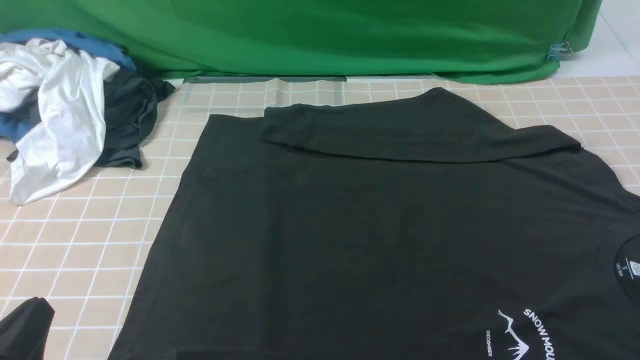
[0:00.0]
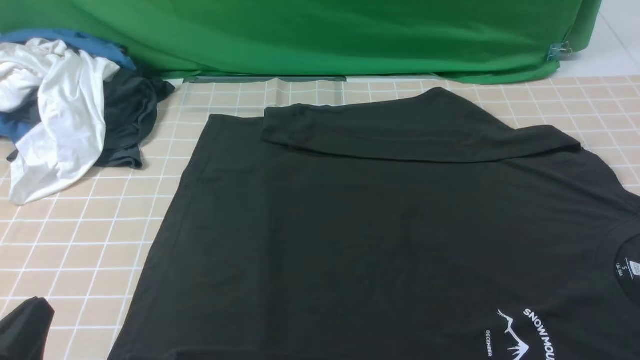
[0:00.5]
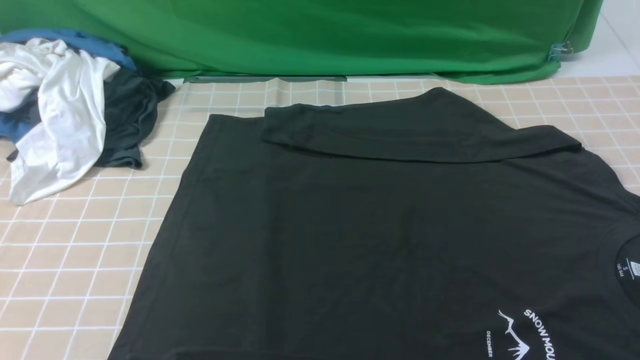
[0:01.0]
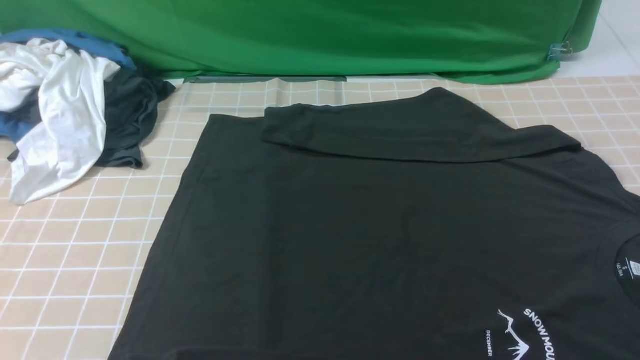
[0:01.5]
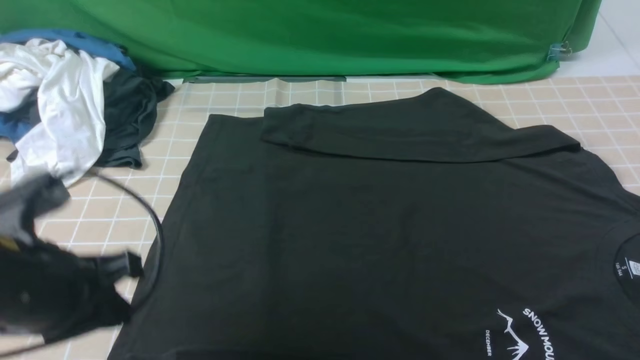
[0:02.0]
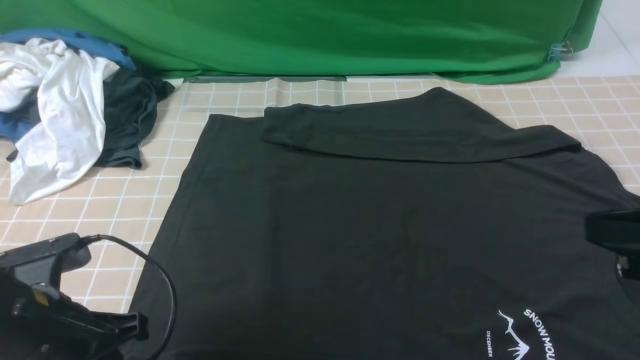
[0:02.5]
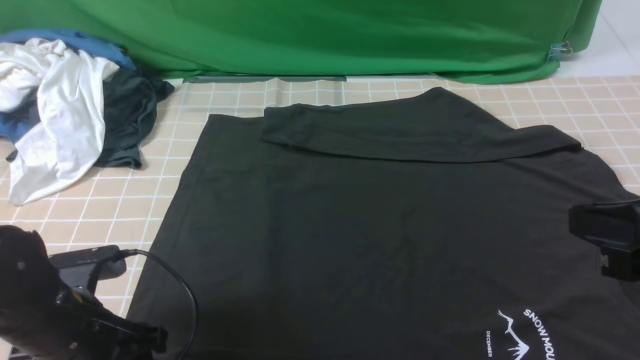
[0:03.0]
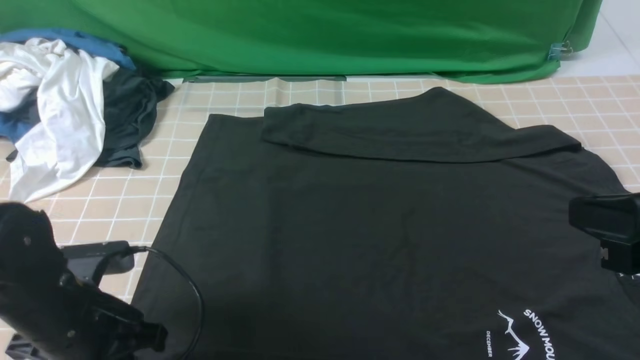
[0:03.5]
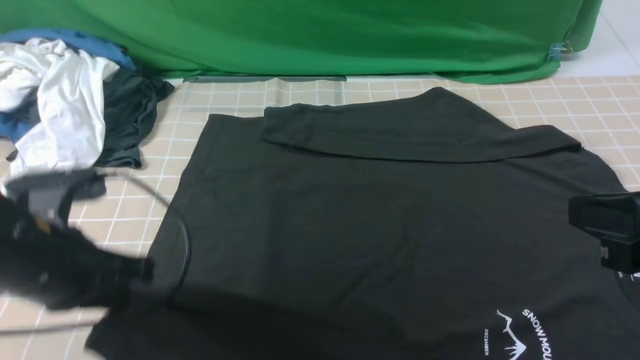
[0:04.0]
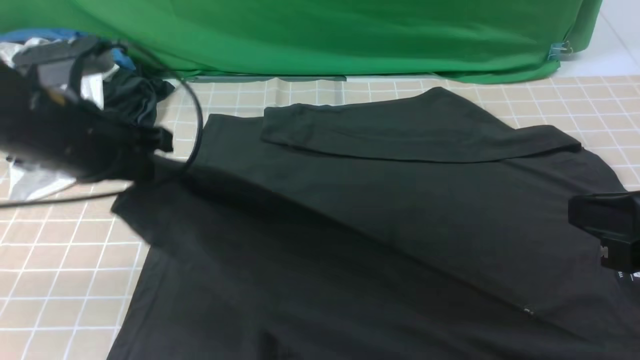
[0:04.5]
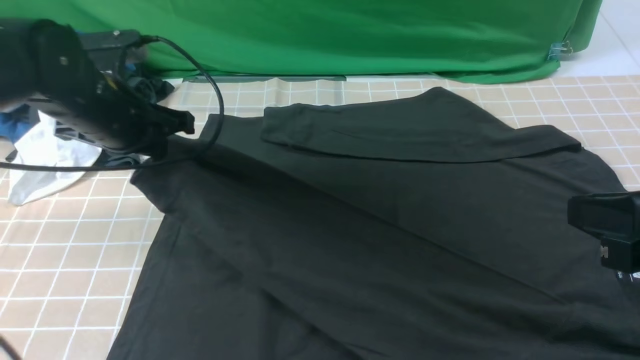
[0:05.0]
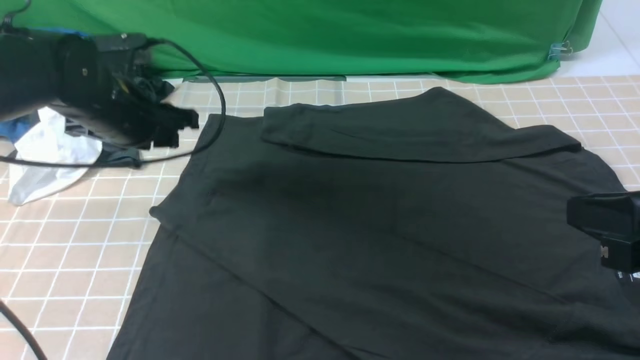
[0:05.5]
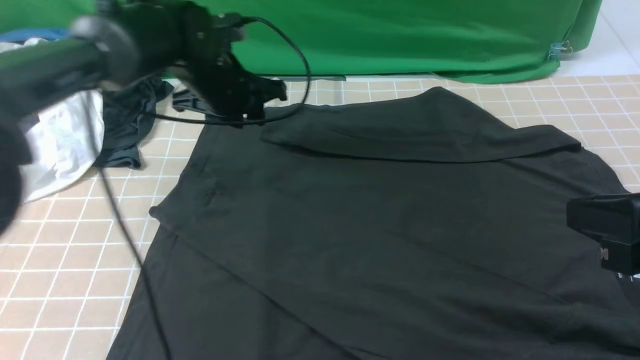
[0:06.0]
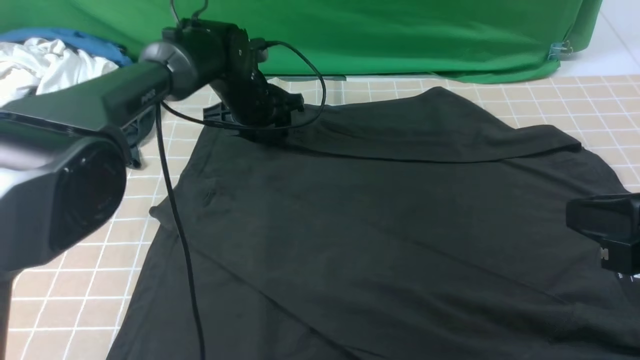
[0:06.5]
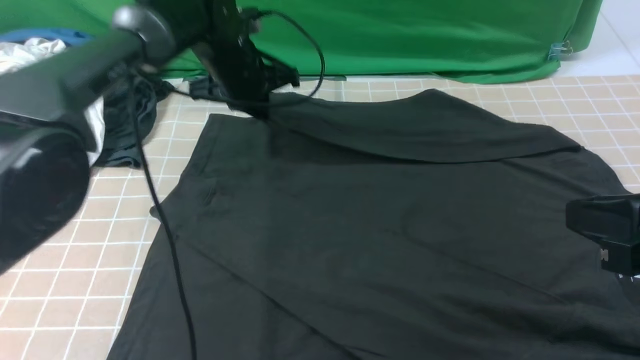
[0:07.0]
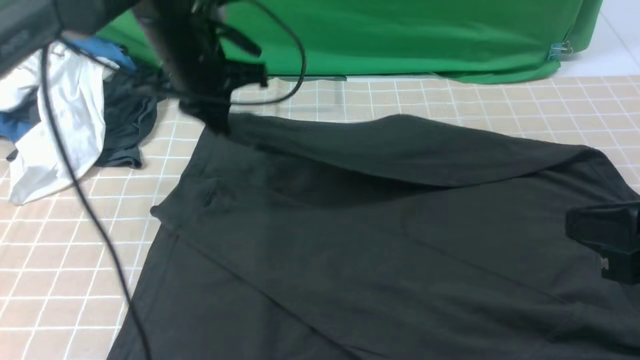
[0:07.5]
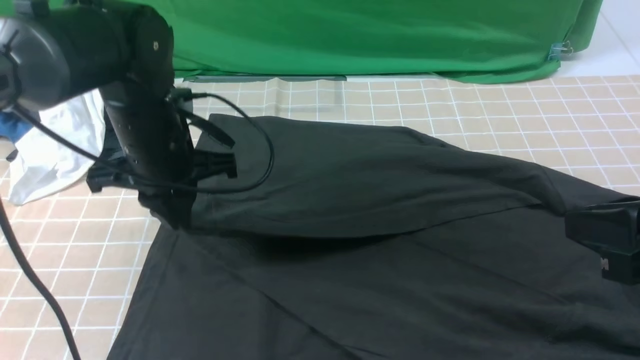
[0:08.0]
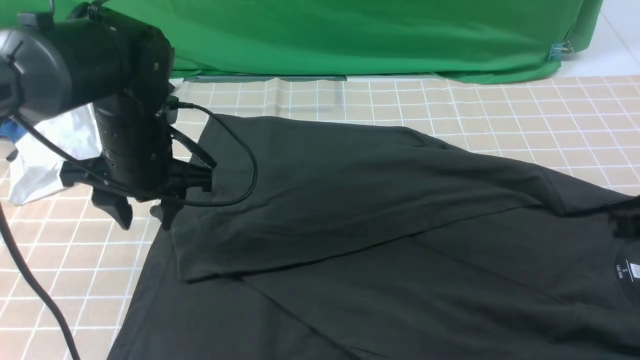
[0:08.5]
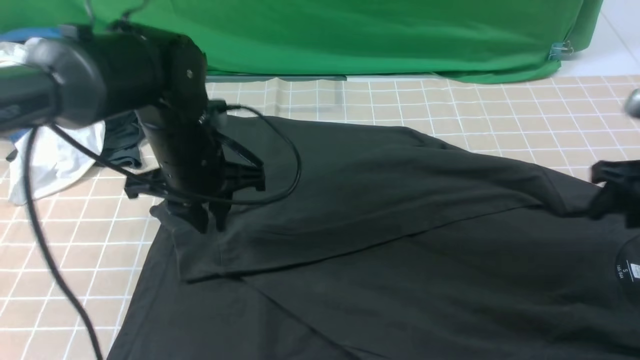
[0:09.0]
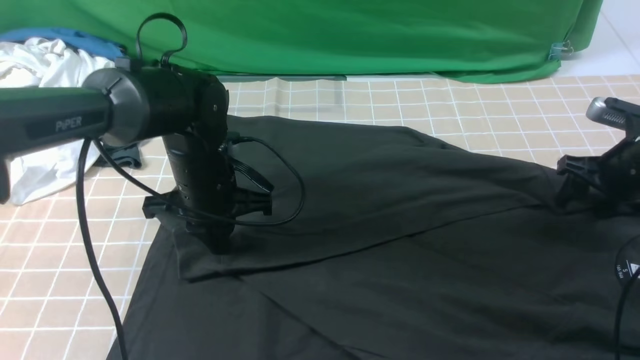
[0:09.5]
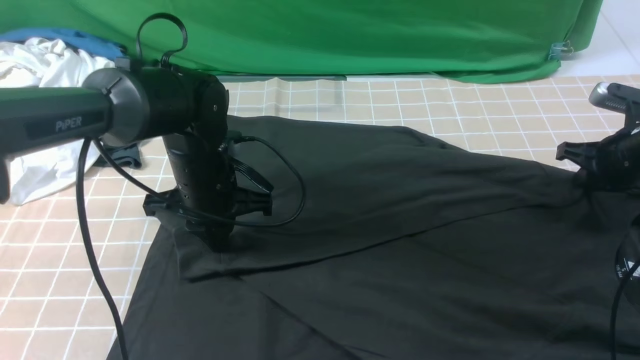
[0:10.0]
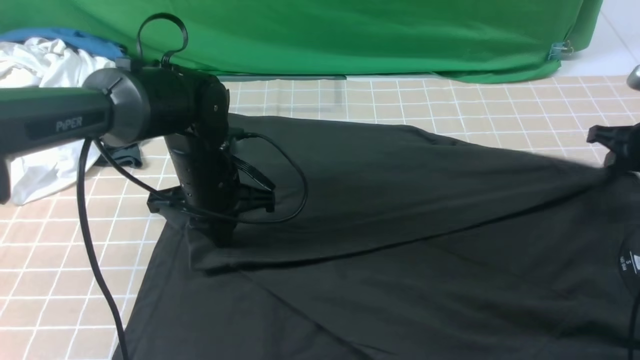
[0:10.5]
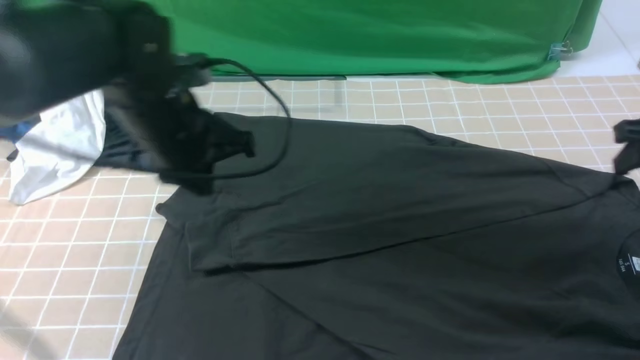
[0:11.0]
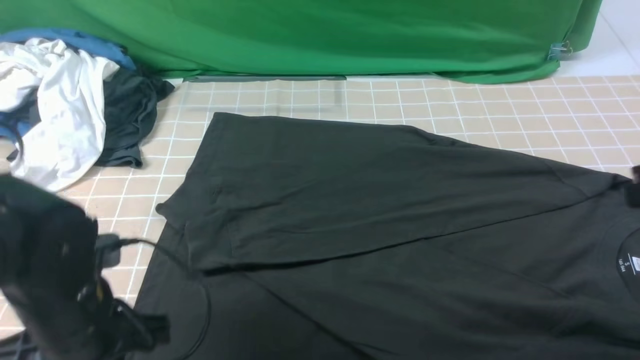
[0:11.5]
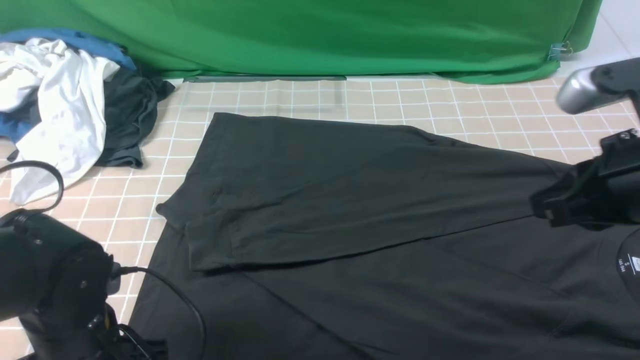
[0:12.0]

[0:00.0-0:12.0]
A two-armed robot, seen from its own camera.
Step, 0:00.0 to 0:03.0: use the left arm to clamp the cuff closest to it.
Step, 0:03.5 to 0:05.0: use the left arm to drag and place the cuff at the centered position on the left edge of the fabric.
Step, 0:05.5 to 0:06.5: use the left arm to clamp the cuff farthest from it.
Step, 0:07.0 to 0:08.0: use the left arm to drag and drop the cuff onto the cuff closest to the left arm.
0:00.0 to 0:02.0: The left gripper heads forward and upward, covering approximately 15 cm.
0:02.0 to 0:04.0: The right gripper shifts roughly 10 cm forward and to the left; the left gripper reaches approximately 10 cm downward, then returns, and opens, then closes again.
0:04.0 to 0:06.0: The left gripper shifts about 25 cm forward, and opens up.
0:06.0 to 0:08.0: The left gripper is displaced backward by roughly 10 cm, and closes up.
0:08.0 to 0:10.0: The right gripper moves forward, downward and to the right, about 30 cm, and opens, then closes once more. The left gripper heads downward, covering some 5 cm, and opens, then closes once more.
0:10.0 to 0:12.0: The left gripper is displaced backward by approximately 20 cm, and opens up, while the right gripper heads backward, upward and to the left, covering about 25 cm.

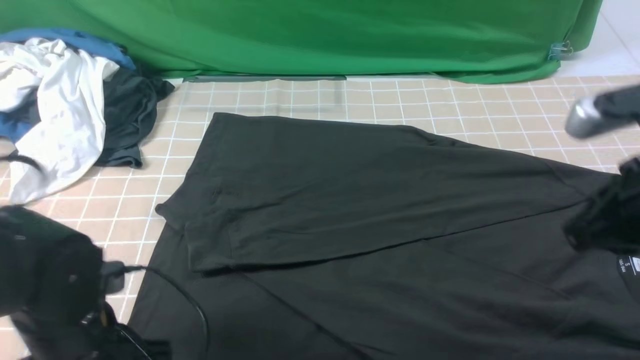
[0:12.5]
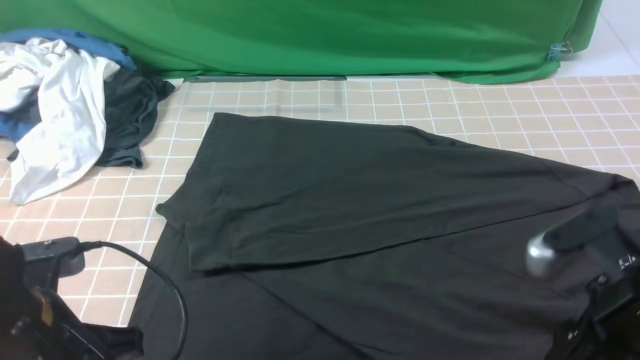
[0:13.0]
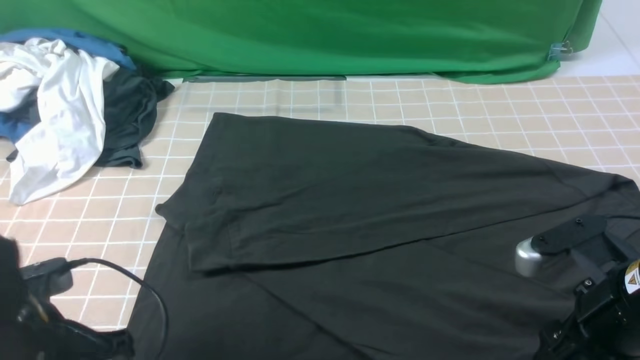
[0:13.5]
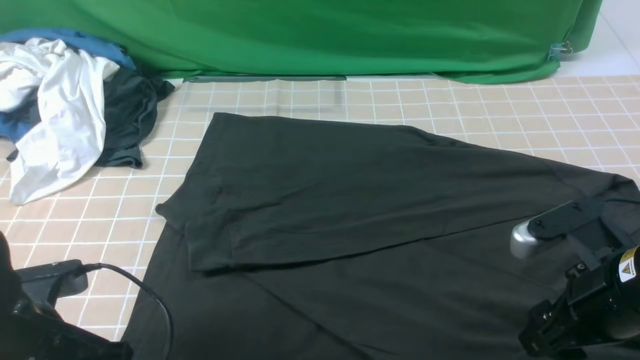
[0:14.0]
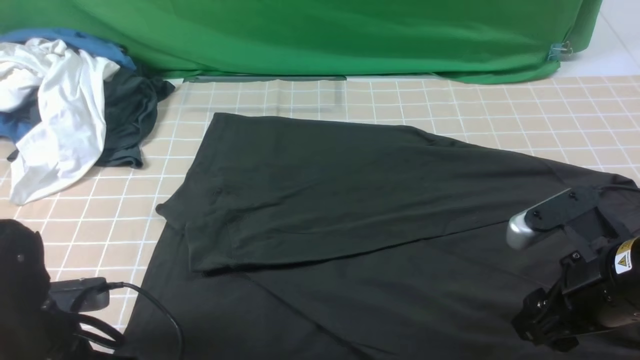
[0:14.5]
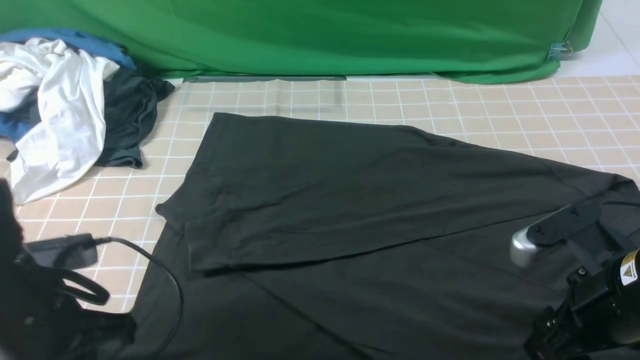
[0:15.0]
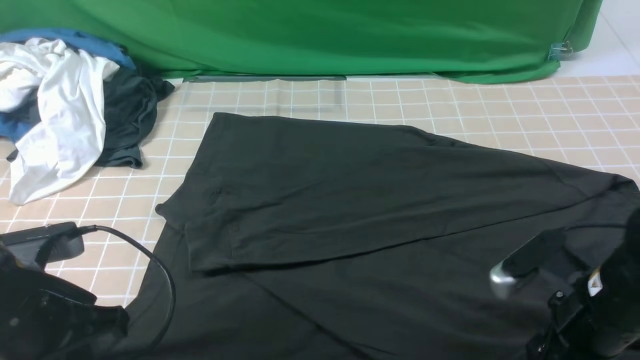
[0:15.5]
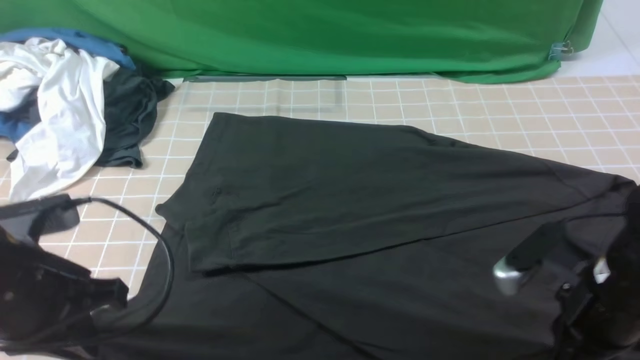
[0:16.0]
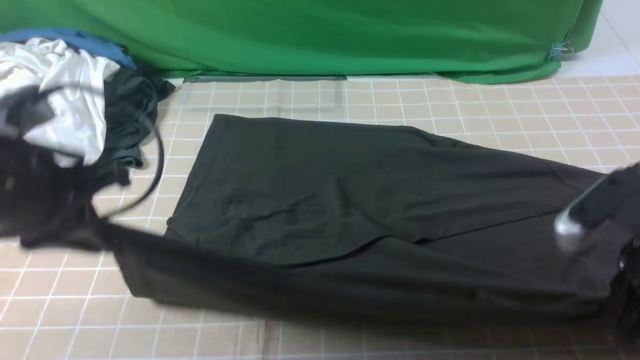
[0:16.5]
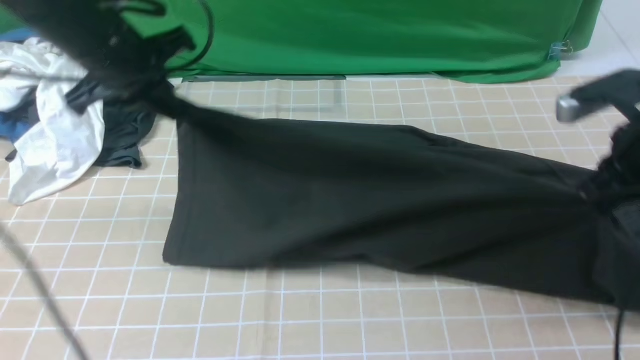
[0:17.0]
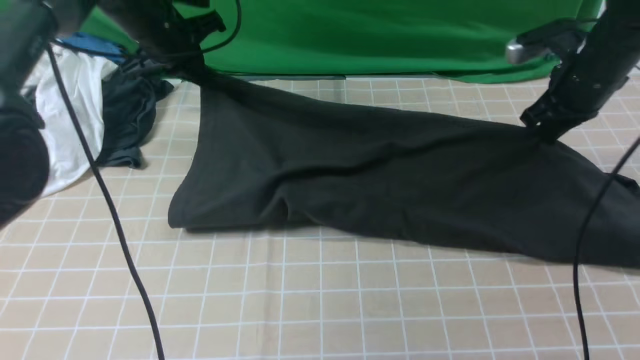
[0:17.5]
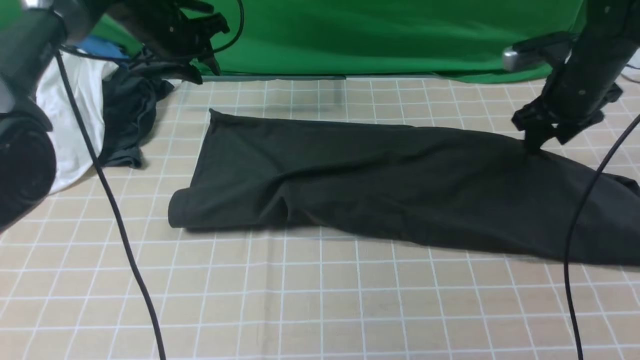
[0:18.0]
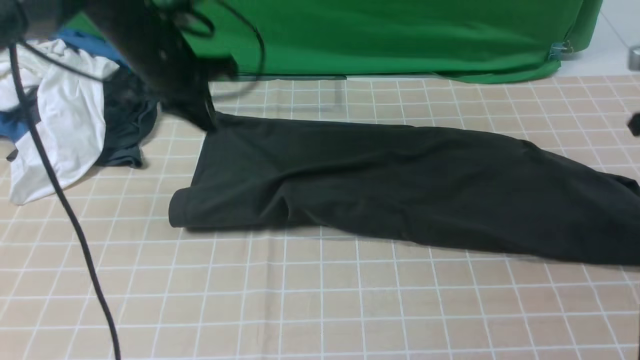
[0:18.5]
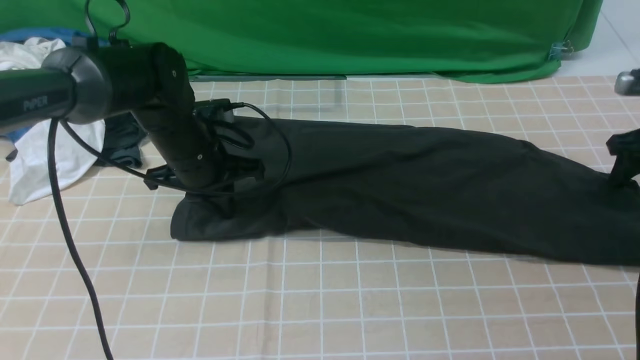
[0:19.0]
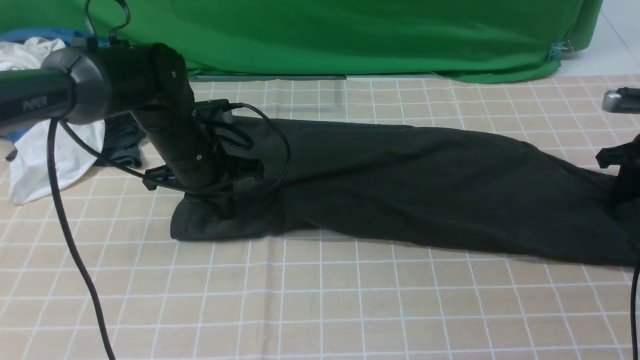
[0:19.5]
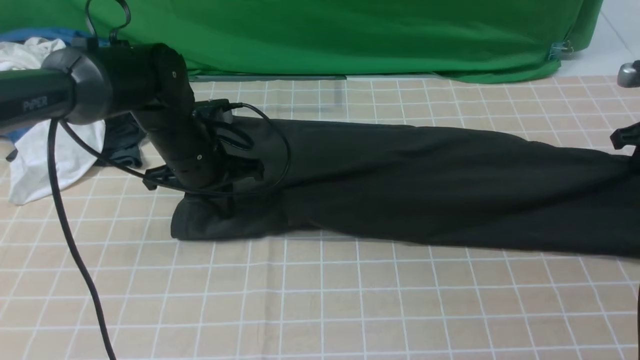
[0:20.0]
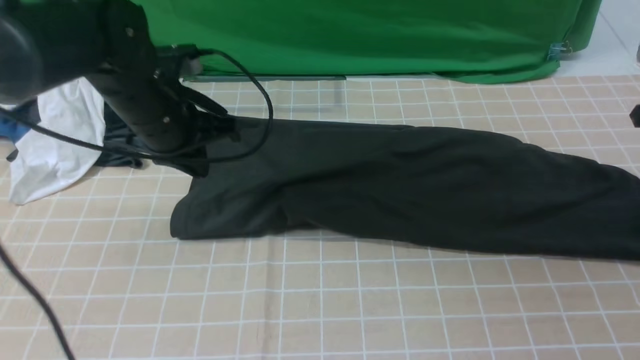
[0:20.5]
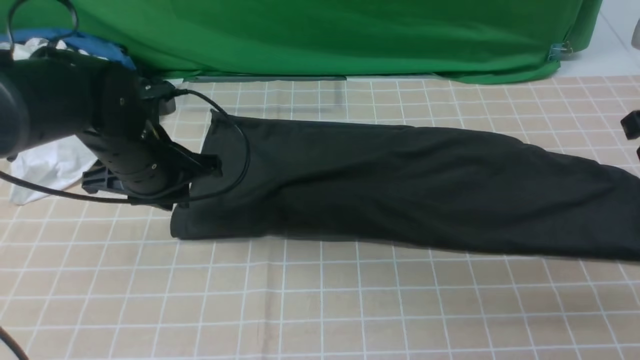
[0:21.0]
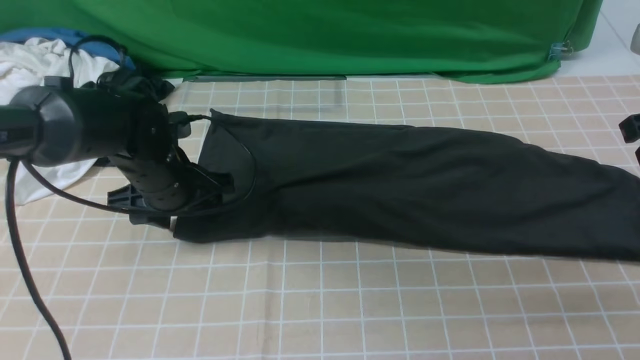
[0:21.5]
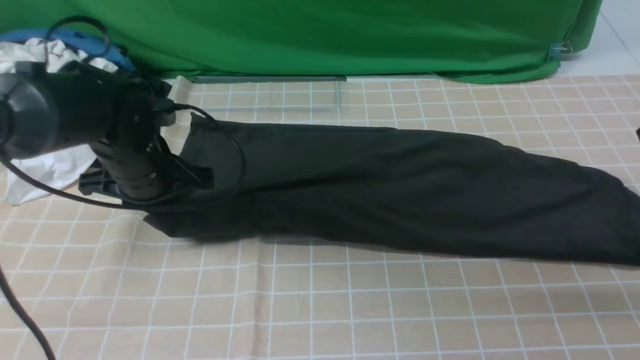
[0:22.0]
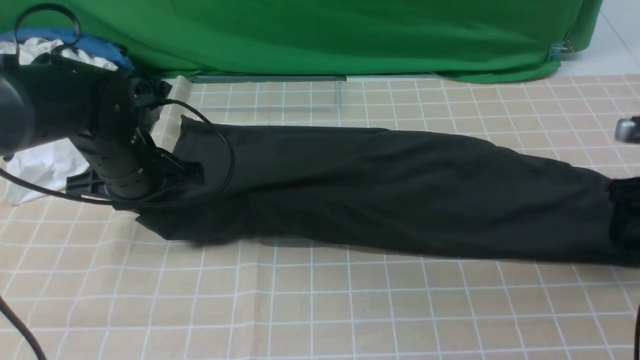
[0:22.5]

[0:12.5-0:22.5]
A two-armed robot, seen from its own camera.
Step, 0:12.5 to 0:15.5: use both arms simultaneously to clamp the lower edge of the clothing fabric.
Step, 0:16.0 to 0:17.5: use both arms to drag the lower edge of the fabric forward and fold it over the upper edge.
0:12.5 to 0:14.5: The right gripper goes some 10 cm downward, and opens up. The left gripper opens its fingers.
0:14.5 to 0:16.5: The left gripper goes some 15 cm upward and forward, and closes up, while the right gripper ends up roughly 5 cm from where it was, and closes up.
0:16.5 to 0:18.5: The right gripper is displaced forward and to the right by about 25 cm, while the left gripper goes roughly 20 cm forward.
0:18.5 to 0:20.5: The right gripper goes downward and returns, about 5 cm each way, and opens and closes again. Meanwhile the left gripper heads backward, covering approximately 10 cm.
0:20.5 to 0:22.5: The right gripper shifts approximately 10 cm downward, and opens its fingers; the left gripper ends up approximately 5 cm from where it was, and opens and closes again.
